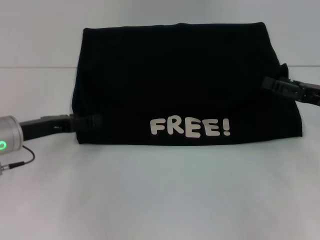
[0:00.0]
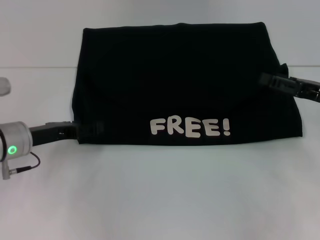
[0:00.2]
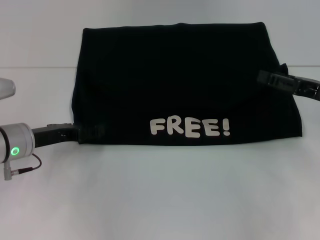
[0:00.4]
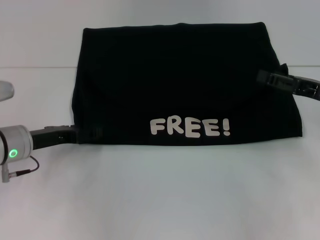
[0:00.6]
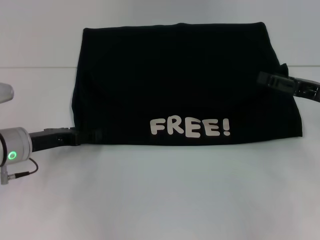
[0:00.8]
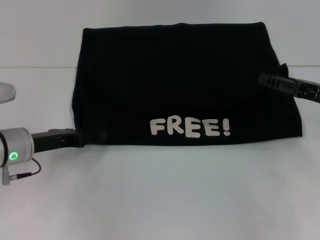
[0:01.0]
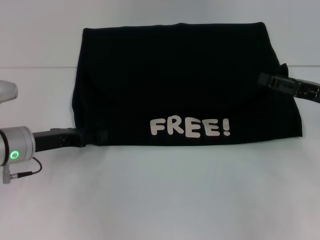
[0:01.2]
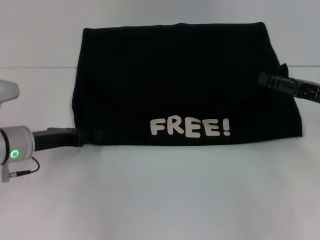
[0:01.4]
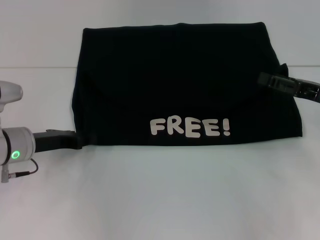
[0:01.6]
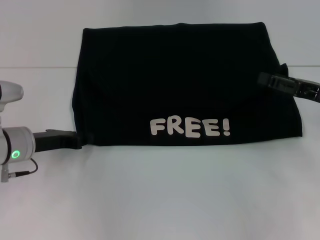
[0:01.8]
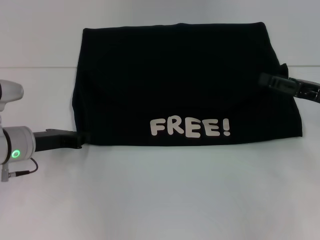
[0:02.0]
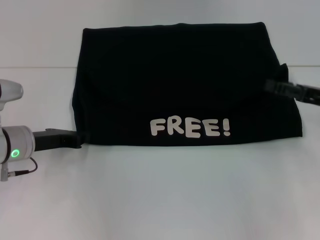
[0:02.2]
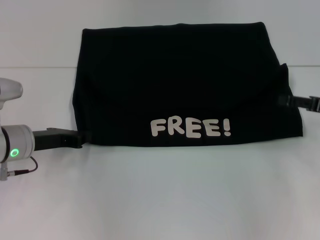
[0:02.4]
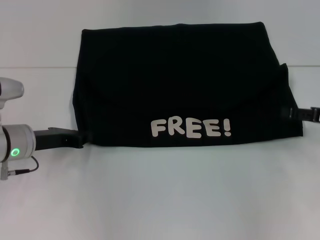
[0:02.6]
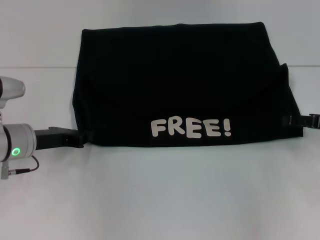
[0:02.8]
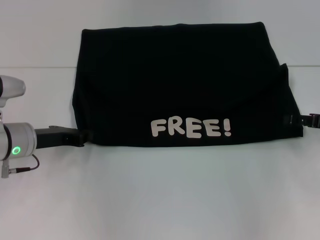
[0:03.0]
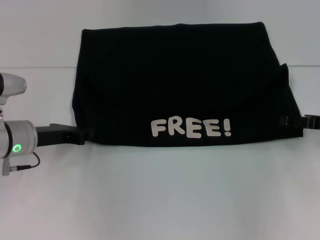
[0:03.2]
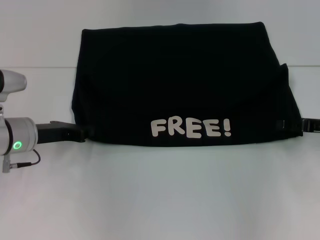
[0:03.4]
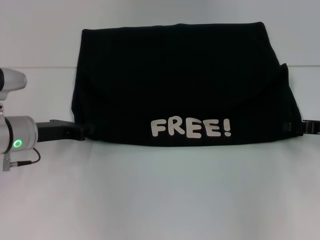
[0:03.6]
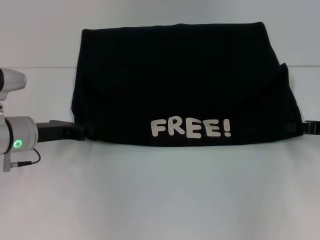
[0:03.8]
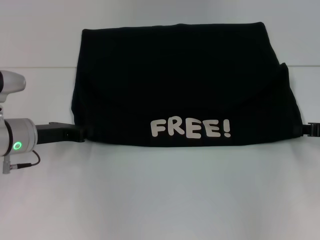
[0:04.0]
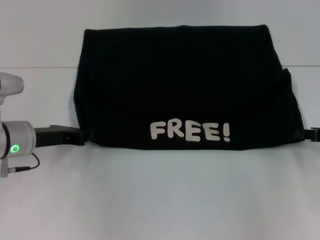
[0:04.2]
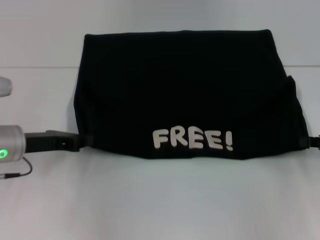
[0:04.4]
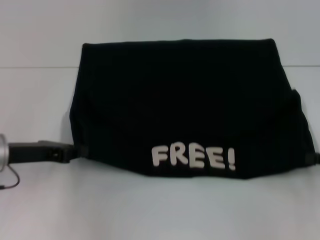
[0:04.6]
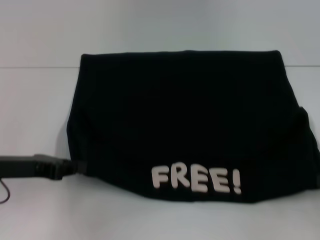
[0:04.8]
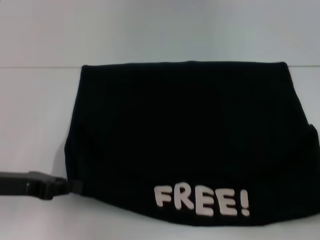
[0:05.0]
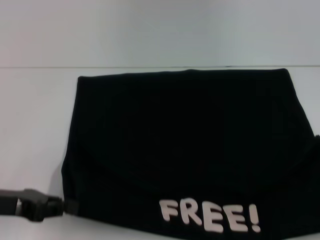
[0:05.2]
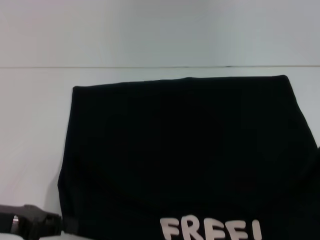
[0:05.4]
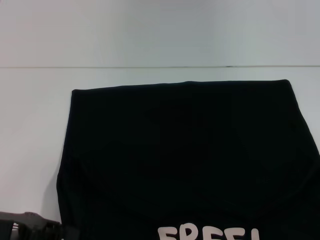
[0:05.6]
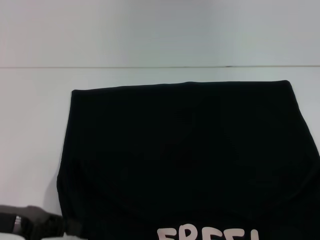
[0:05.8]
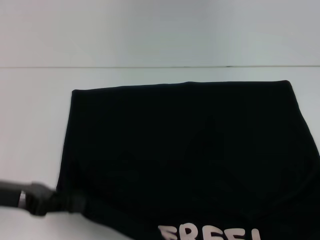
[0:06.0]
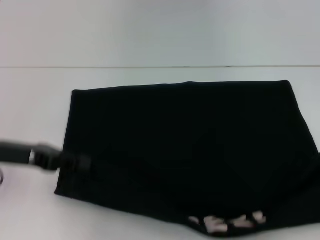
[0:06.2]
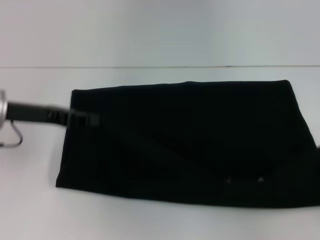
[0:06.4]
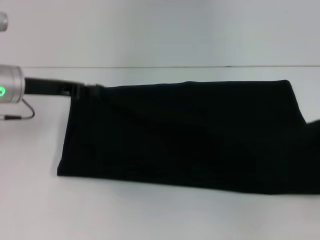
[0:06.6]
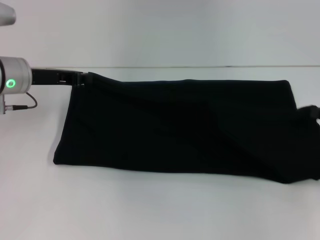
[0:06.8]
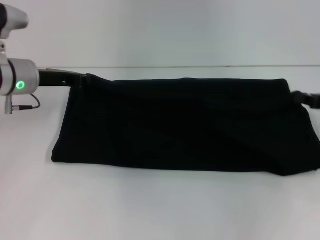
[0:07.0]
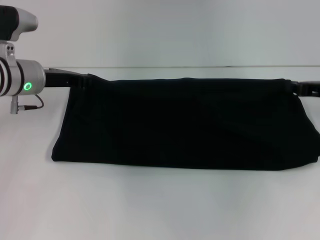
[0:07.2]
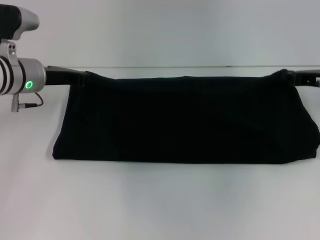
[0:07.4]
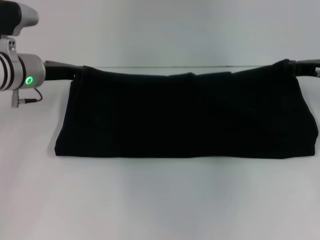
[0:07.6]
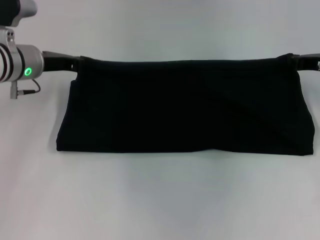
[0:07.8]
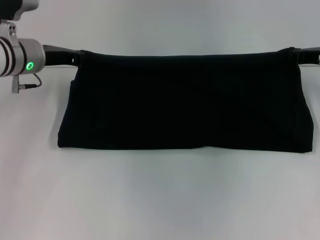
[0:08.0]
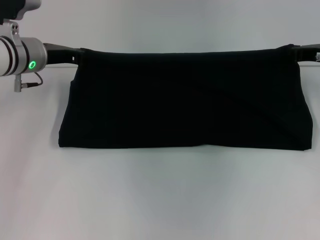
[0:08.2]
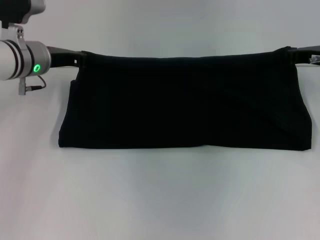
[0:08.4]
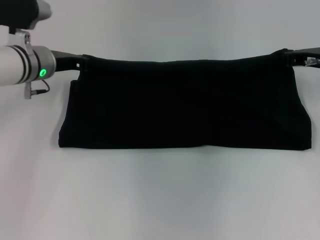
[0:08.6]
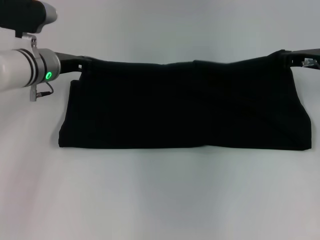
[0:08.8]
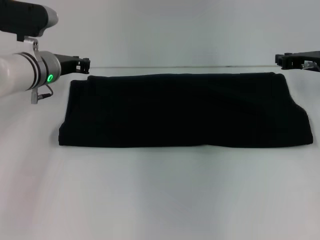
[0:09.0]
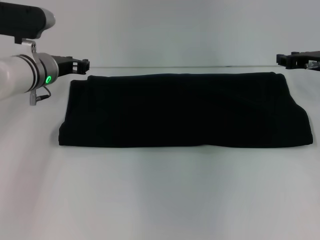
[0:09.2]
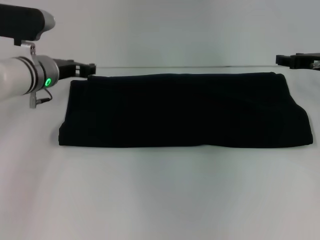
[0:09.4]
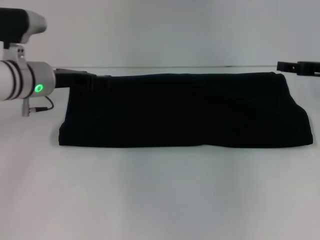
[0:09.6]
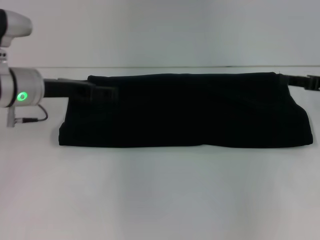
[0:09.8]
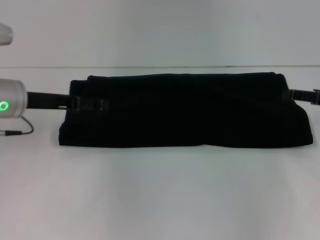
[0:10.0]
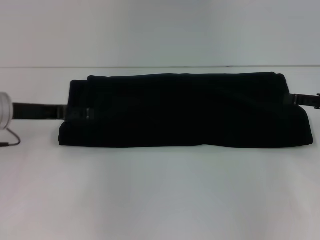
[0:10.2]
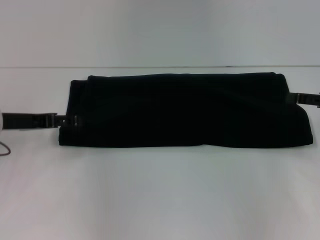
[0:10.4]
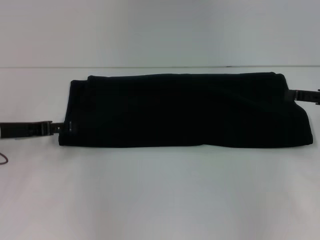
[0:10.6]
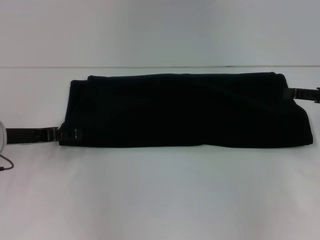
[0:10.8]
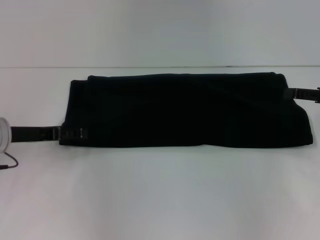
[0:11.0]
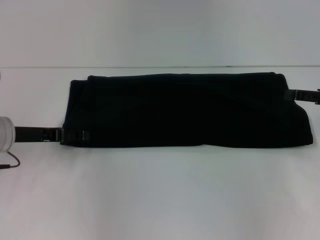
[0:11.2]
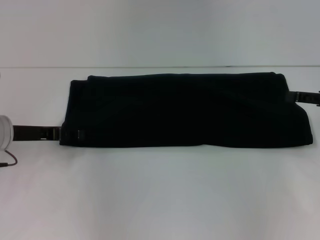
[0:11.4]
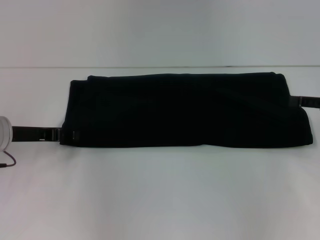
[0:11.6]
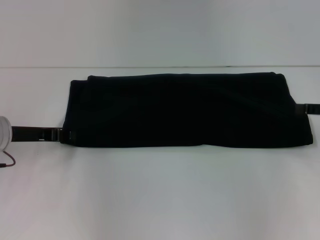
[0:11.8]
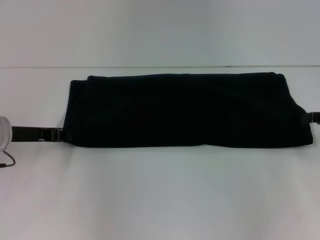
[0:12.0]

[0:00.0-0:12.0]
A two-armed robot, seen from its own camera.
Step, 0:00.0 to 0:05.4: Pull the clothes with your left hand.
Step, 0:00.0 to 0:05.4: Pull the clothes with your right hand.
Step, 0:05.6 to 0:09.8: Fold the clothes with your right hand.
0:00.0 to 0:01.6: The grippers stay close to where they were, moving slightly.
0:01.6 to 0:03.0: The left gripper closes.
0:03.0 to 0:04.4: The right gripper closes.
0:04.4 to 0:06.0: The right gripper moves backward, approximately 15 cm; the left gripper travels backward by approximately 10 cm.
0:06.0 to 0:07.6: The right gripper goes about 25 cm forward and to the left, while the left gripper travels forward by about 20 cm.
0:07.6 to 0:09.0: The grippers move only a little.
0:09.0 to 0:10.4: The left gripper travels backward and to the left by approximately 15 cm, and opens its fingers. Meanwhile the right gripper is displaced backward and to the right by about 10 cm, and opens up.
0:10.4 to 0:12.0: The left gripper closes.

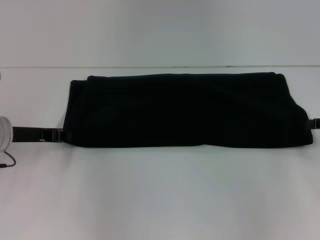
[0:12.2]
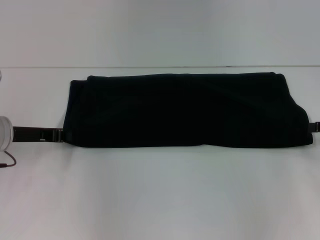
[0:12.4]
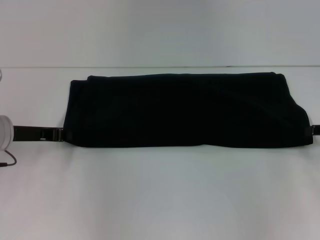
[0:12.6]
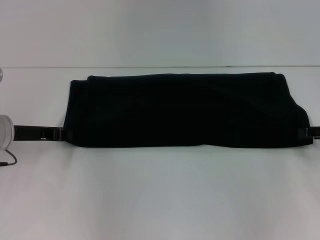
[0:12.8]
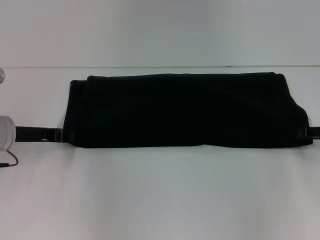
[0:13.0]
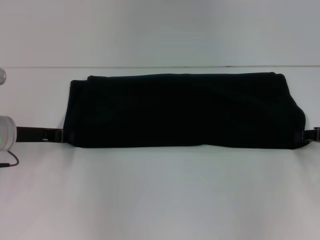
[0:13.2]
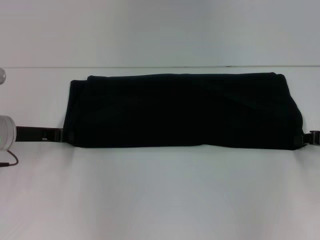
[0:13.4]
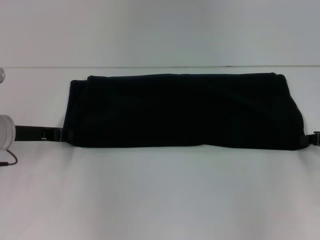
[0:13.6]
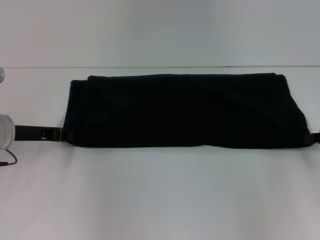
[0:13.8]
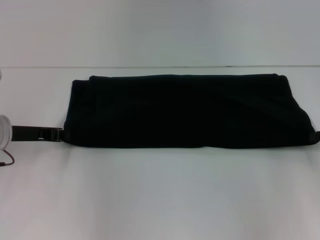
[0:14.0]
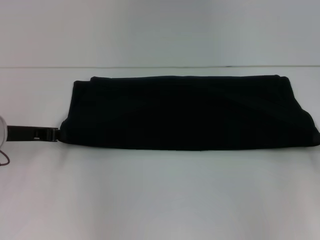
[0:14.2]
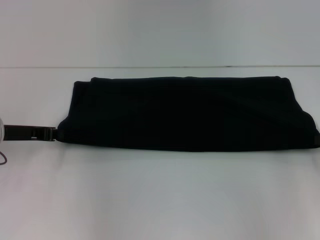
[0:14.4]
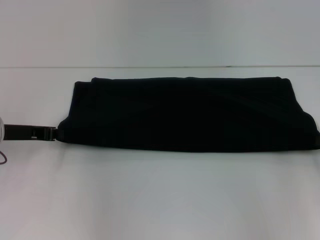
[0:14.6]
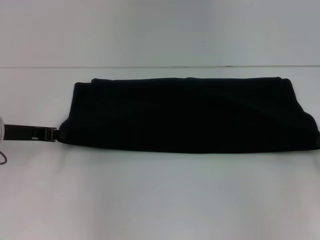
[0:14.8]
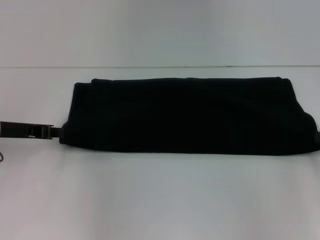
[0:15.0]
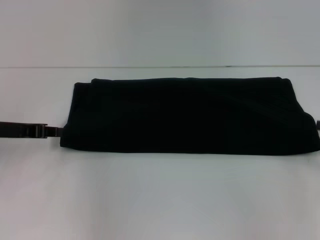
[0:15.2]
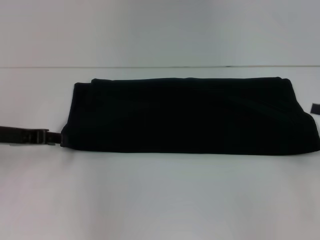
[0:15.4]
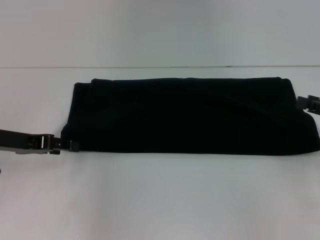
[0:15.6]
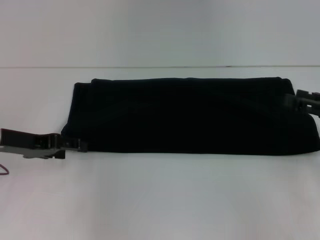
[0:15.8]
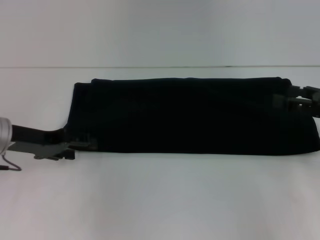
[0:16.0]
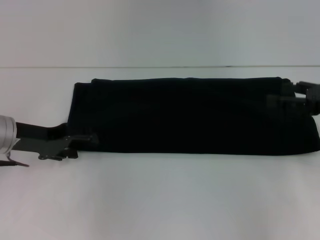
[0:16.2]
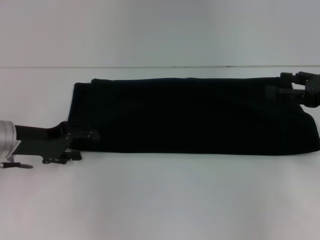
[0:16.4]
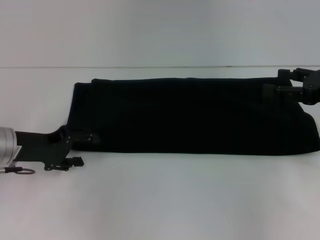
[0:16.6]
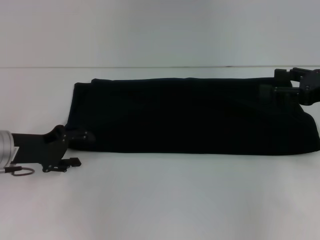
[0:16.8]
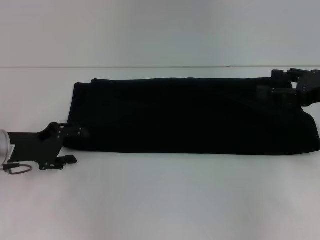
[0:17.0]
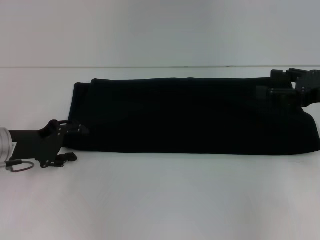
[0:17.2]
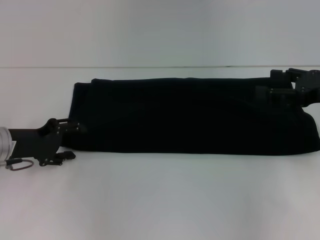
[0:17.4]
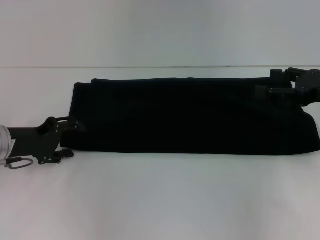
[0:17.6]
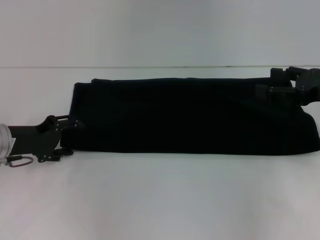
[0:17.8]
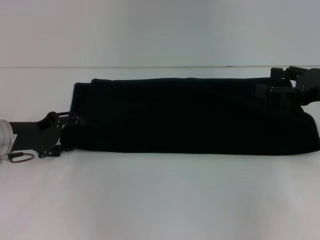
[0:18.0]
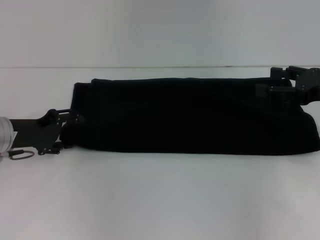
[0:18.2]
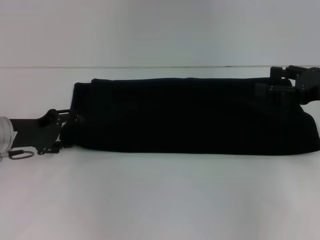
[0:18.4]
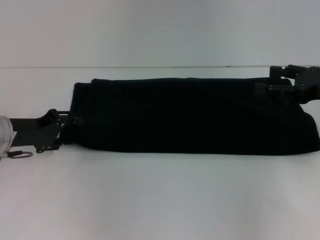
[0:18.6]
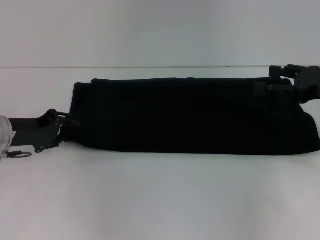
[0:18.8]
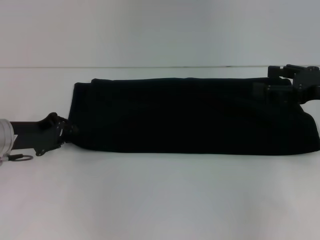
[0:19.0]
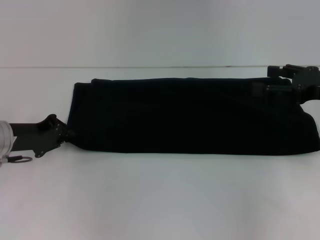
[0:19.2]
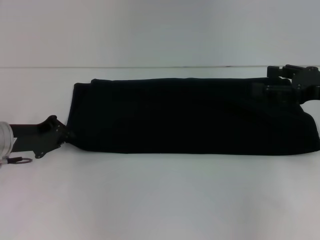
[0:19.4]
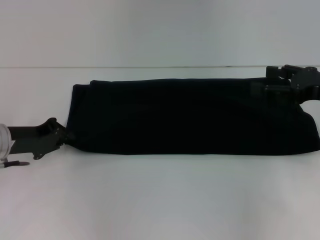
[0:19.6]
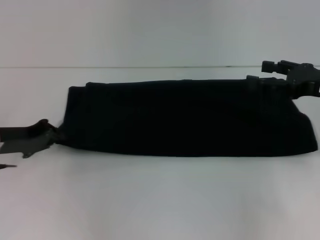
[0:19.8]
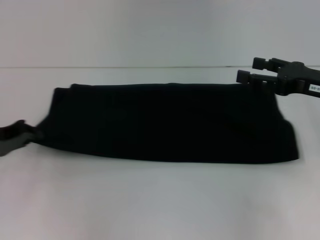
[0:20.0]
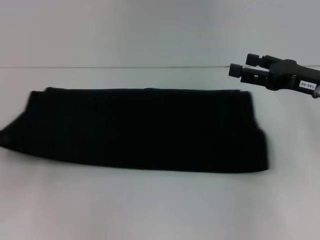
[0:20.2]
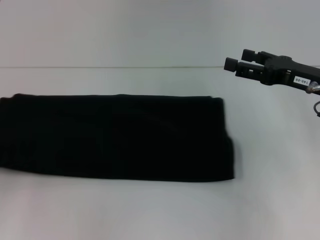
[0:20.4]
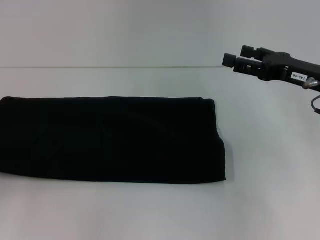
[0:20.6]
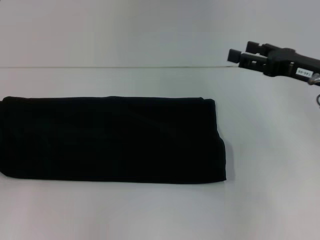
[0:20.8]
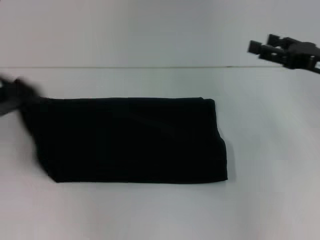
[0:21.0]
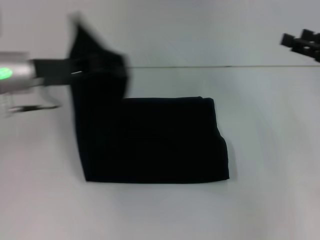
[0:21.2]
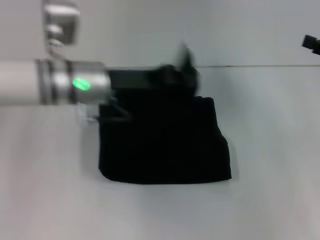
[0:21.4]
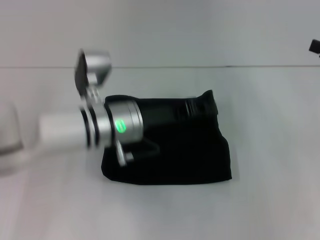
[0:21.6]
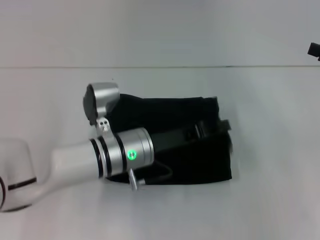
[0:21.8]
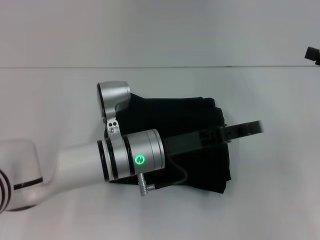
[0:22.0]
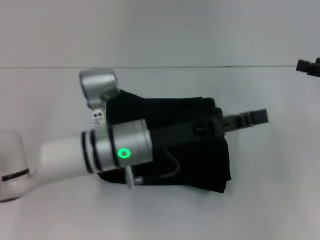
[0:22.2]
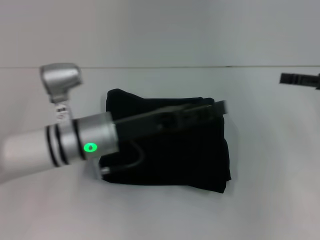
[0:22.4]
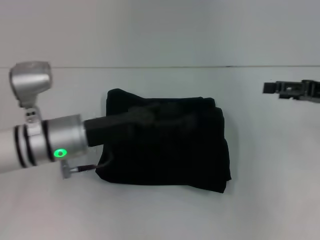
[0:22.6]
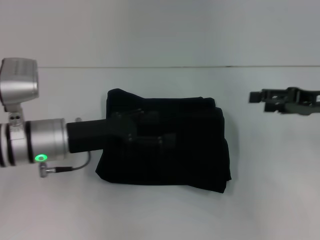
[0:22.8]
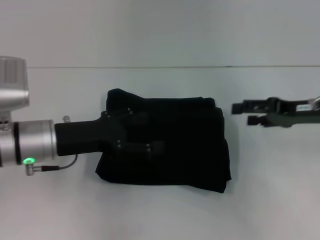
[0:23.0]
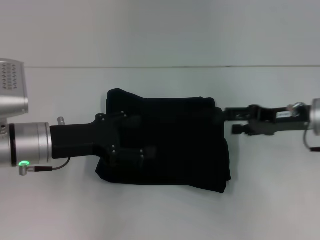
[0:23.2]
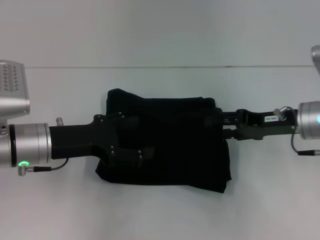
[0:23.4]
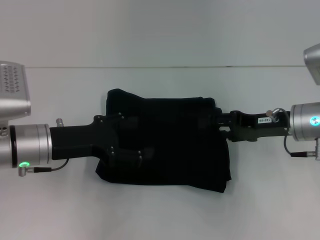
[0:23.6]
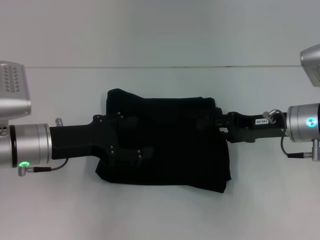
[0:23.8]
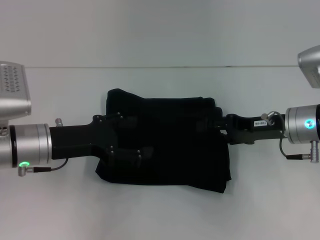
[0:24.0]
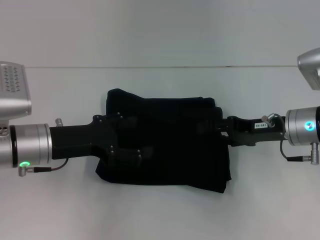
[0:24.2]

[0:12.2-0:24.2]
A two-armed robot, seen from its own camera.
Step, 0:12.2 to 0:22.0: Fold the clothes with your left hand.
0:12.2 to 0:13.8: The right gripper closes up.
0:13.8 to 0:15.2: The grippers move only a little.
0:15.2 to 0:16.6: The left gripper opens. Meanwhile the right gripper shifts approximately 5 cm to the left, and opens.
0:16.6 to 0:18.2: The grippers stay close to where they were, moving slightly.
0:18.2 to 0:19.8: The left gripper closes.
0:19.8 to 0:21.2: The left gripper heads upward, covering some 10 cm, and reaches about 10 cm to the left, then returns.
0:21.2 to 0:22.6: The left gripper moves to the right, downward and backward, roughly 10 cm, and opens.
0:22.6 to 0:24.2: The right gripper heads to the left and downward, covering approximately 10 cm; the left gripper heads to the left, covering about 5 cm.
